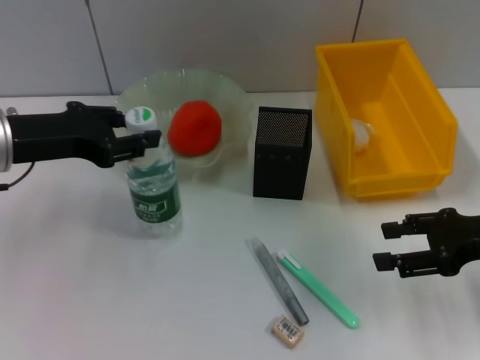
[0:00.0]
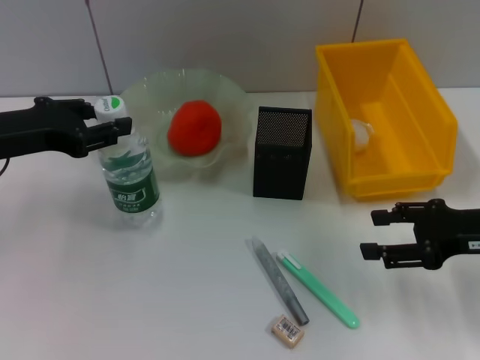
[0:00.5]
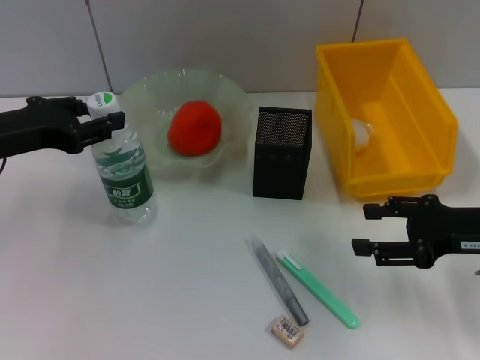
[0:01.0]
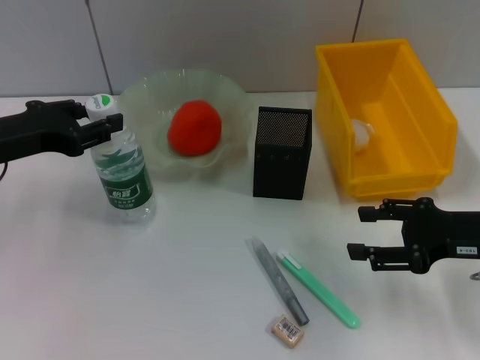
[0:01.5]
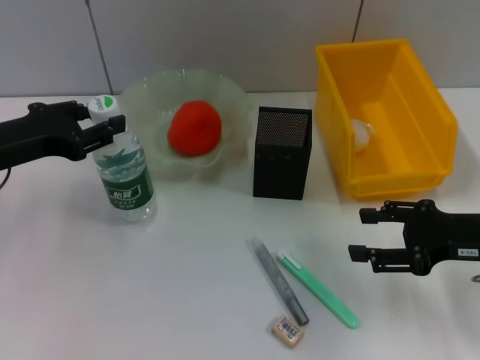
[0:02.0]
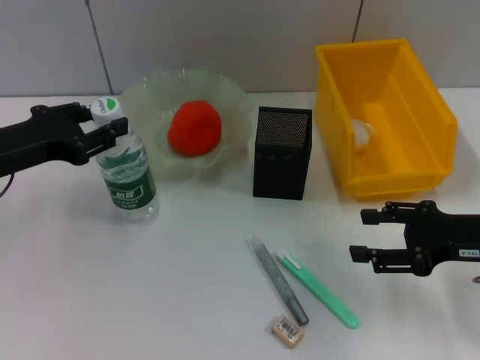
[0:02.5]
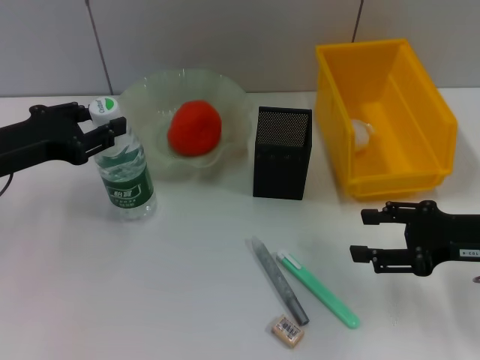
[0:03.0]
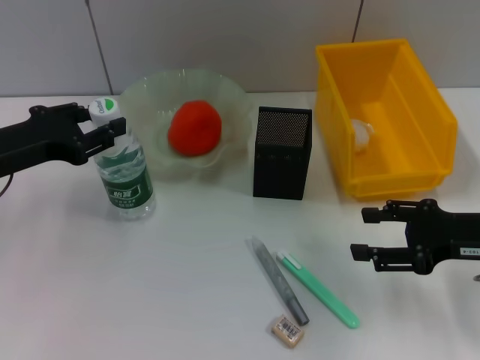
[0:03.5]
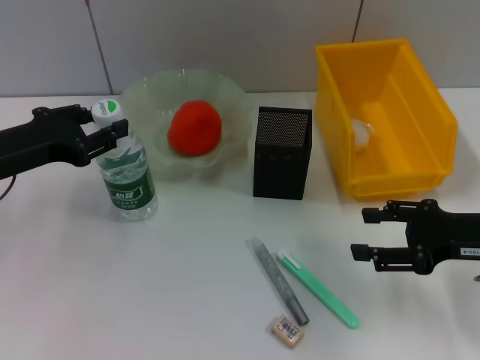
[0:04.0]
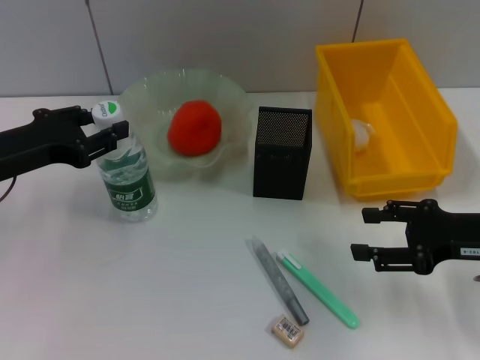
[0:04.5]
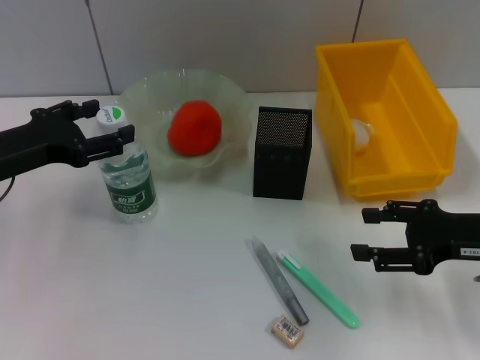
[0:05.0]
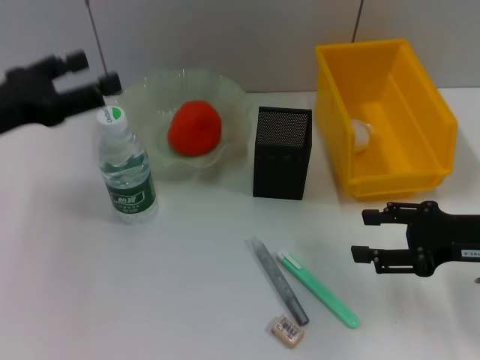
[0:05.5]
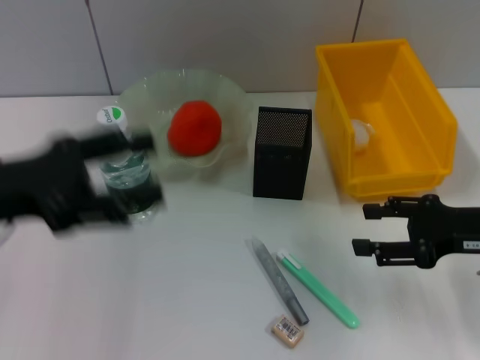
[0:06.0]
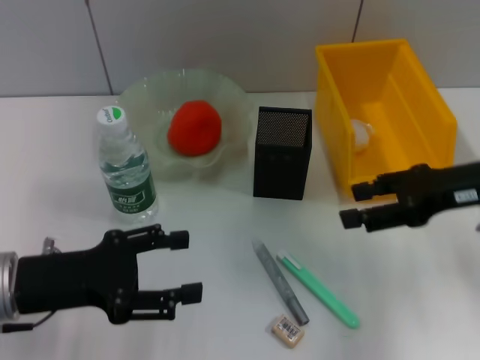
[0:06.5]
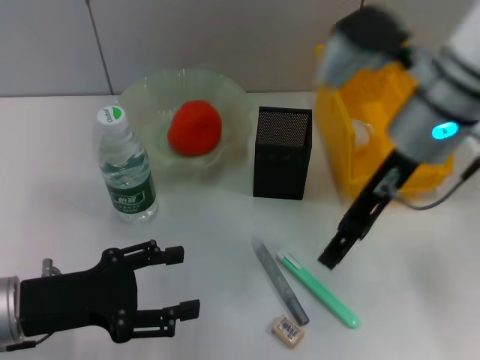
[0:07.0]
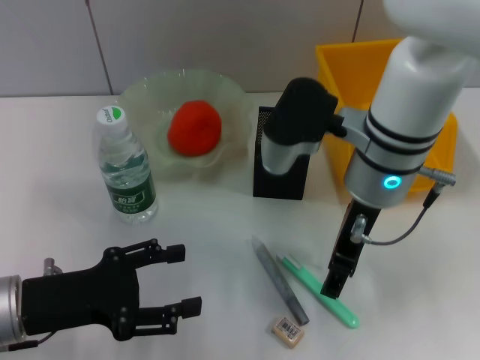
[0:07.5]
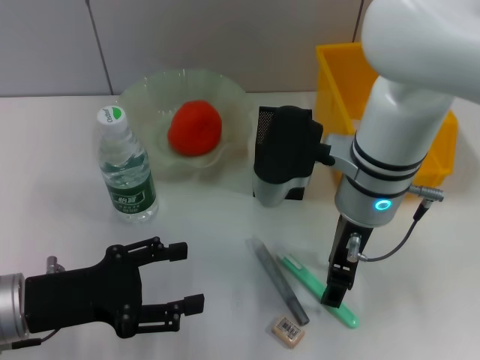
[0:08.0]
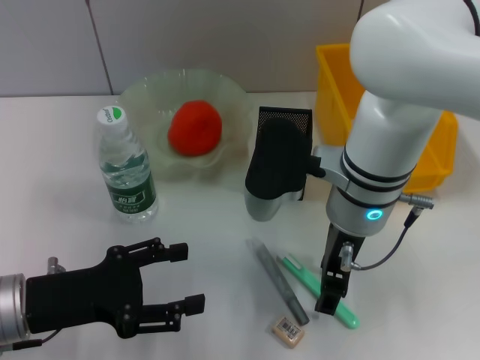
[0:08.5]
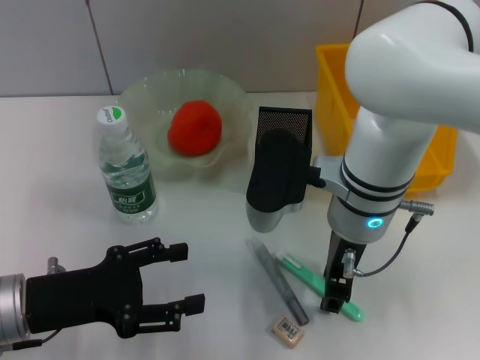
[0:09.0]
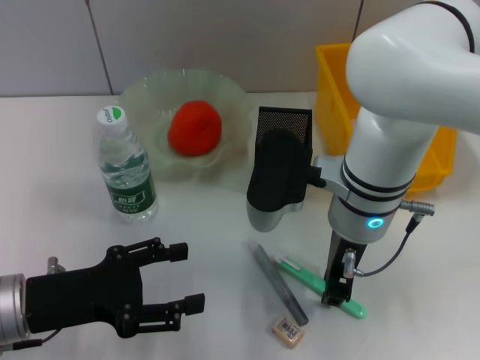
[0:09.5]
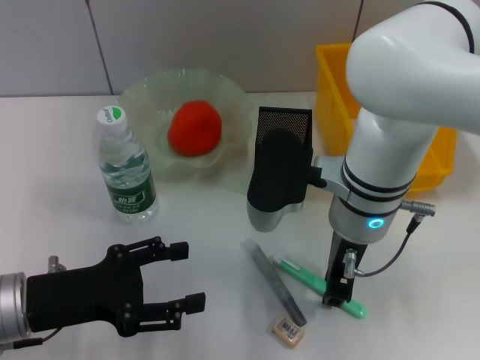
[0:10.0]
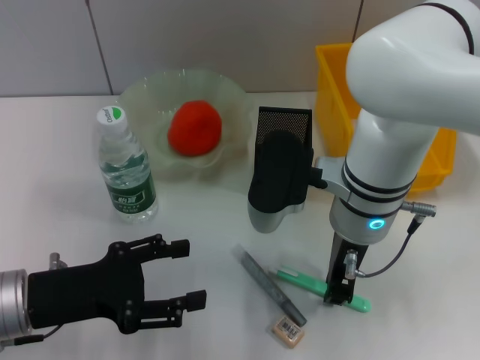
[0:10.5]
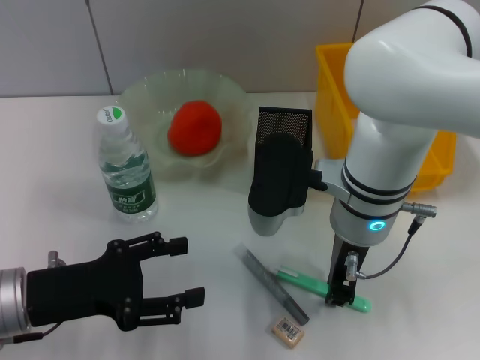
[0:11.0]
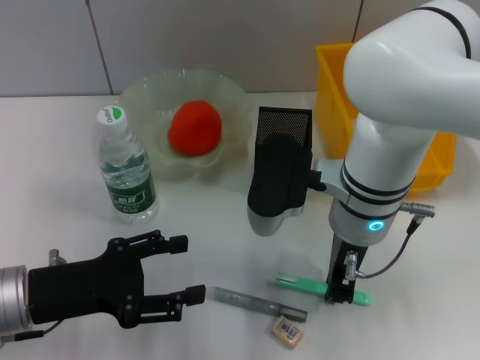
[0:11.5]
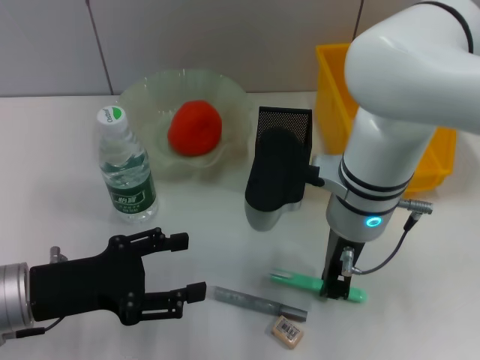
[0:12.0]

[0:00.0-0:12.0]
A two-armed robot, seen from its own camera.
Step, 0:00.0 to 0:04.5: Place the water bottle on the table with the left hand.
Step, 0:05.0 to 0:10.0: Grab the blue utility knife with the left hand.
0:00.0 to 0:02.0: The grippers stay close to where they were, moving slightly.
0:02.0 to 0:04.0: The two grippers keep their place.
0:04.0 to 0:06.0: The left gripper heads backward, covering about 5 cm, and opens its fingers.
0:06.0 to 0:08.0: The left gripper heads downward, covering approximately 10 cm, while the right gripper heads to the left, covering roughly 20 cm.
0:08.0 to 0:10.0: The right gripper closes.
0:10.0 to 0:12.0: Both grippers stay about where they are.

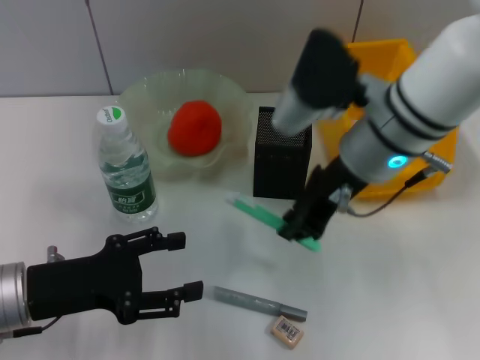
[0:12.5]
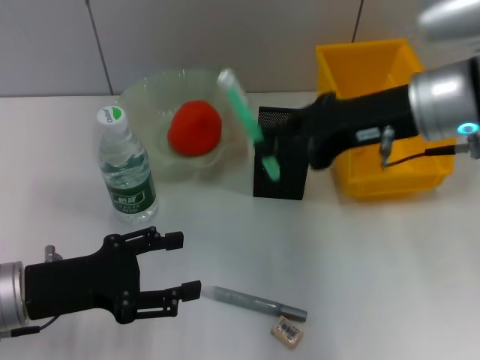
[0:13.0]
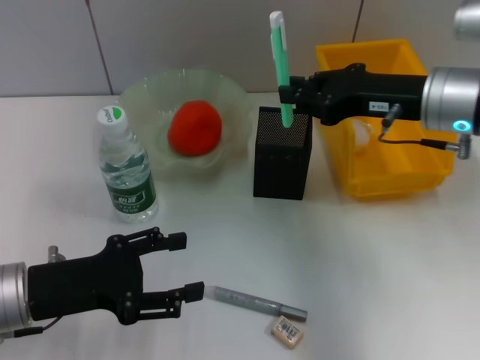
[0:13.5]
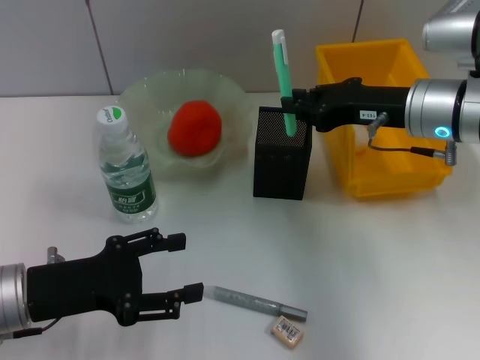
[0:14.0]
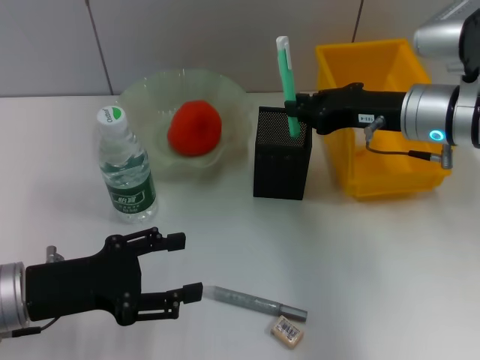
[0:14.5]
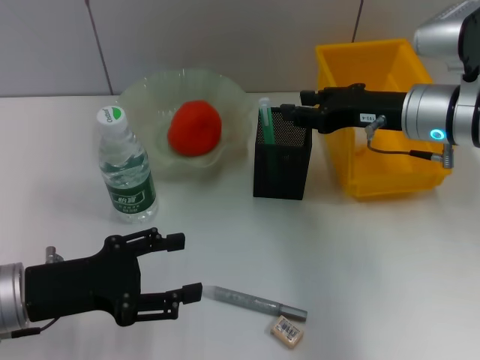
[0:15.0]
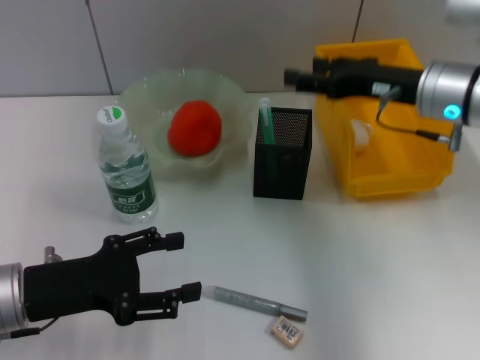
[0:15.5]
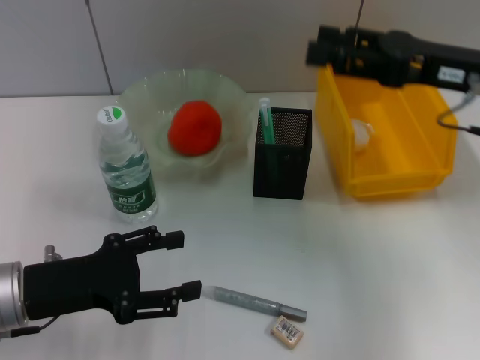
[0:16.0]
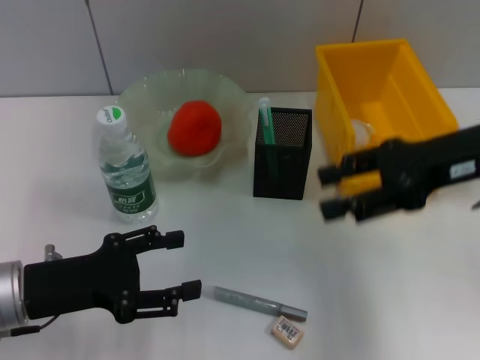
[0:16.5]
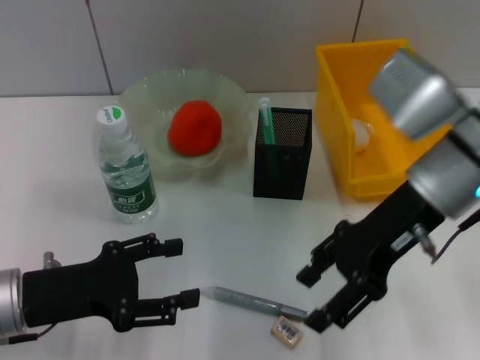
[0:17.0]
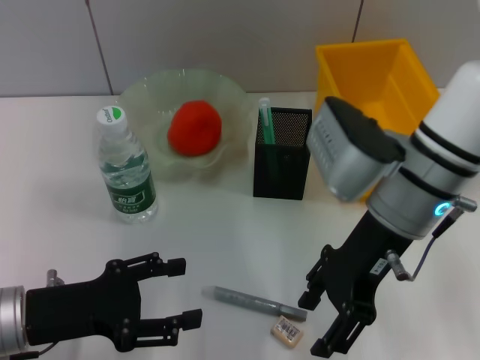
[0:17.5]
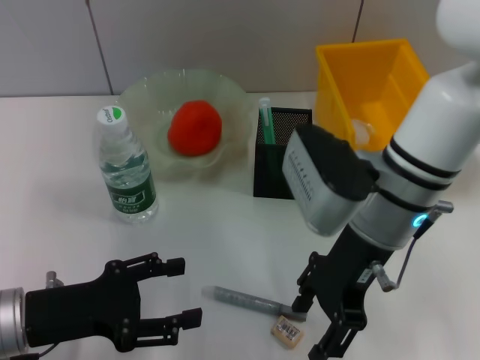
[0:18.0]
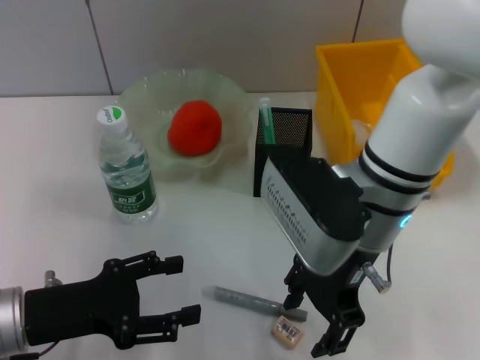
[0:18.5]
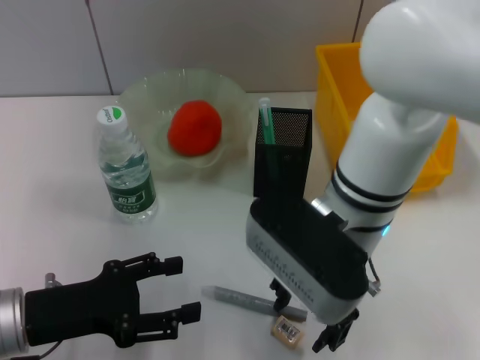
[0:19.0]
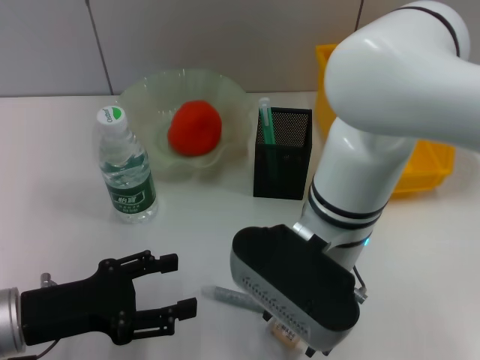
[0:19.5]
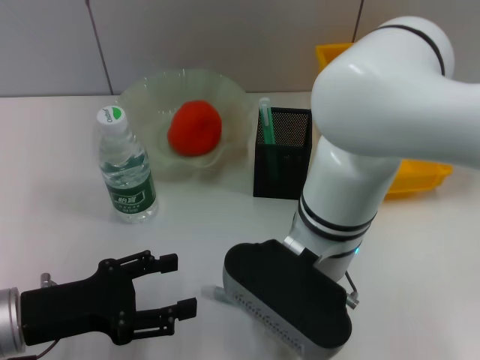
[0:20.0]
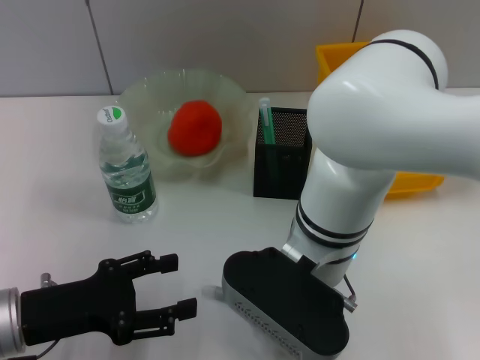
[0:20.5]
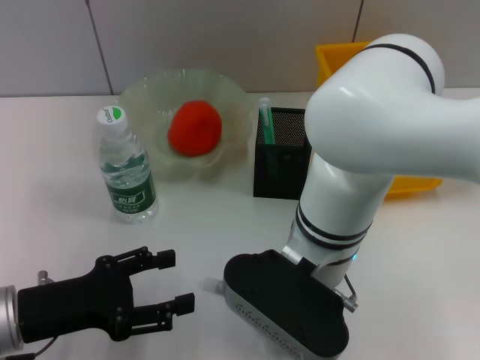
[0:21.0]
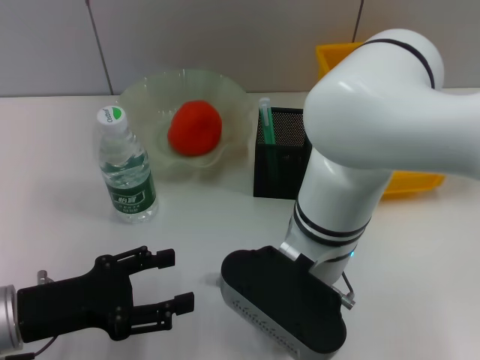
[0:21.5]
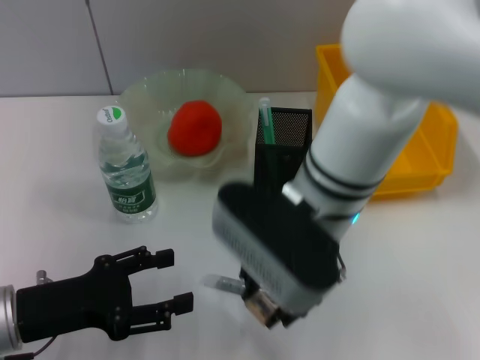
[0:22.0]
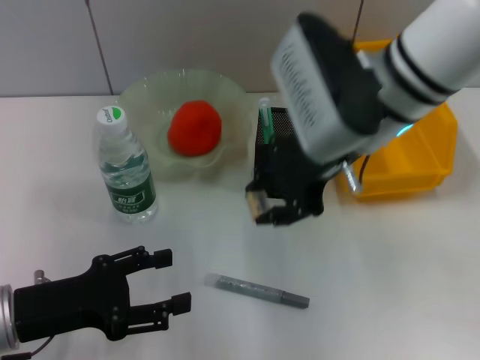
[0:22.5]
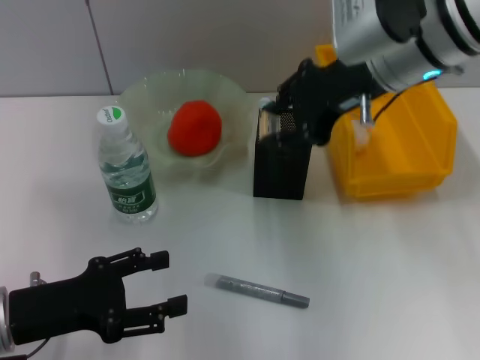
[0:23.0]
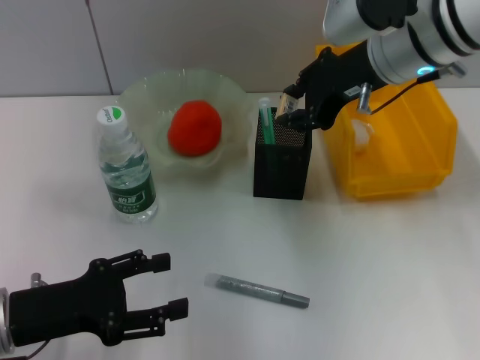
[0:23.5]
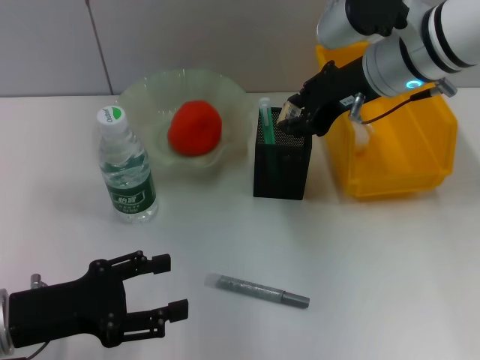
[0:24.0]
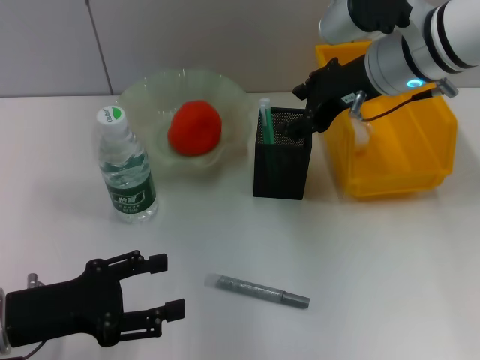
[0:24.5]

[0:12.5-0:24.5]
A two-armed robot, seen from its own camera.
Step, 0:15.5 to 0:21.0: Grab the eraser with the right hand.
Step, 0:21.5 to 0:24.0: Put the eraser into the pen holder with the right hand.
0:12.5 to 0:14.5: The right gripper goes roughly 10 cm to the right.
0:14.5 to 0:16.5: The right gripper travels backward and upward by approximately 10 cm, and opens up.
0:16.5 to 0:18.5: The right gripper heads to the left, covering some 15 cm.
0:18.5 to 0:20.5: The right gripper changes place by roughly 5 cm.
0:20.5 to 0:22.5: The right gripper shifts some 15 cm upward, forward and to the right, and closes.
0:22.5 to 0:24.5: The right gripper shifts approximately 5 cm forward.

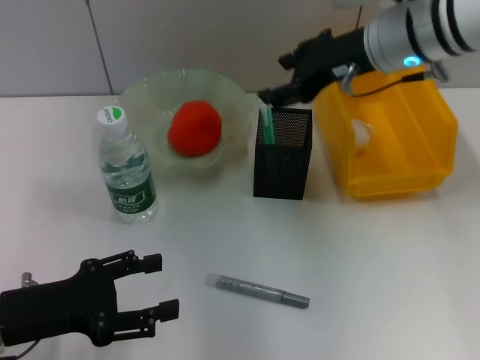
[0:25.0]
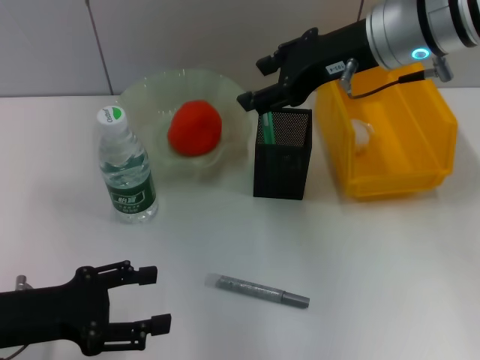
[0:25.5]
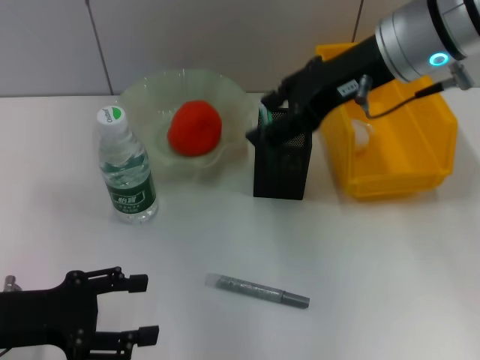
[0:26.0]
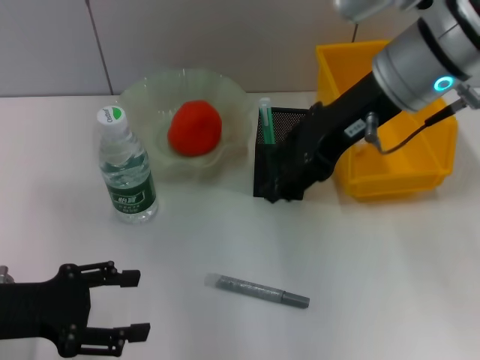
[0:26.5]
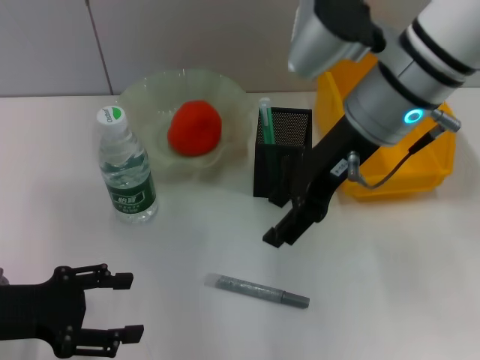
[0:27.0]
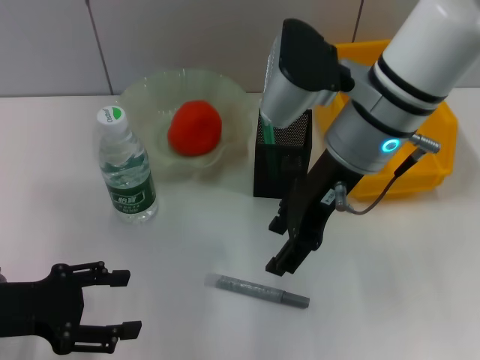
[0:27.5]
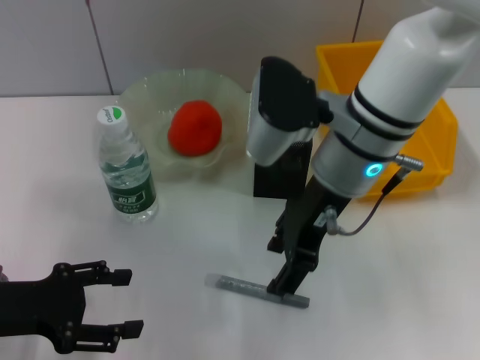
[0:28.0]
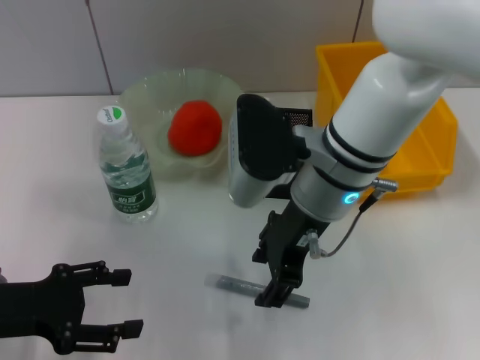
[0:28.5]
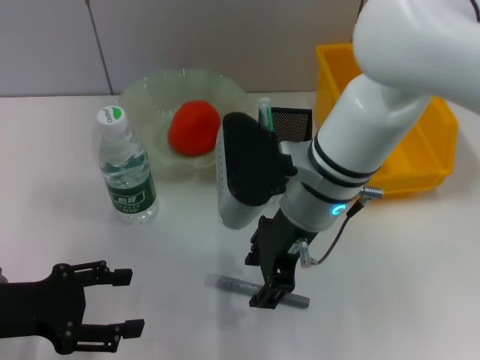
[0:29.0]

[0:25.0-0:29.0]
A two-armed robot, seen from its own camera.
0:25.0 to 0:27.0: The right gripper moves backward, approximately 5 cm.
0:27.0 to 0:29.0: The right gripper is displaced downward and to the left by roughly 10 cm.
